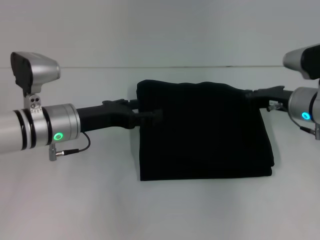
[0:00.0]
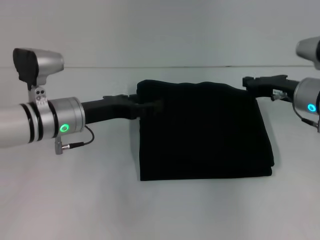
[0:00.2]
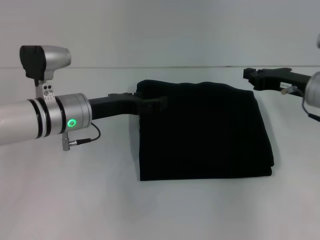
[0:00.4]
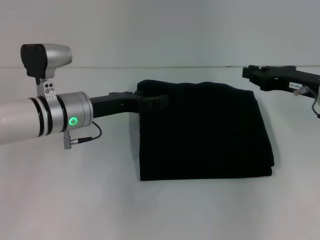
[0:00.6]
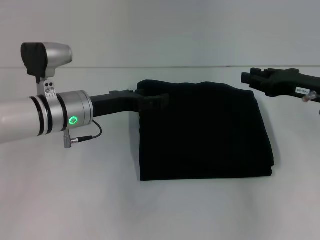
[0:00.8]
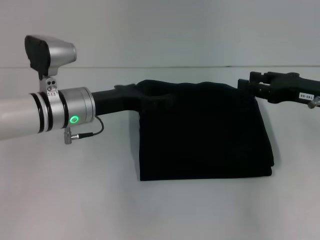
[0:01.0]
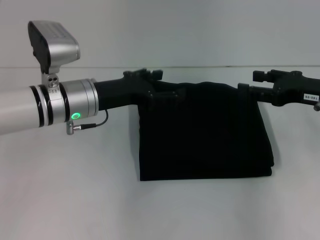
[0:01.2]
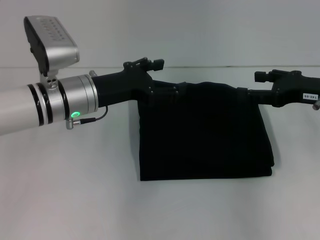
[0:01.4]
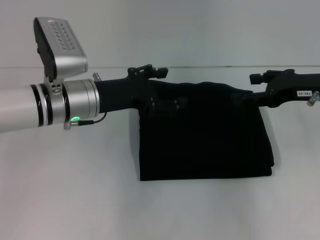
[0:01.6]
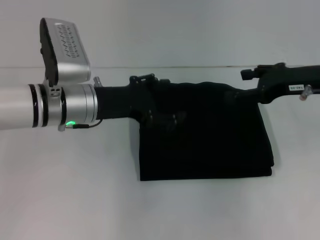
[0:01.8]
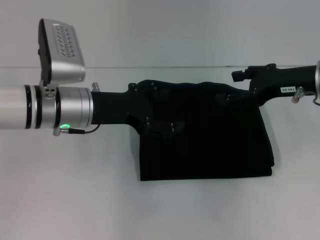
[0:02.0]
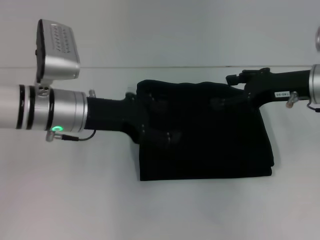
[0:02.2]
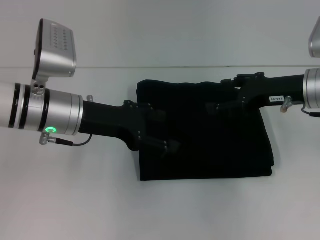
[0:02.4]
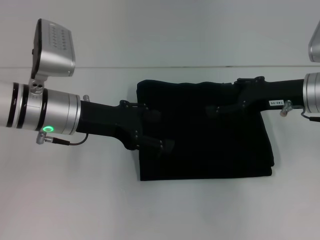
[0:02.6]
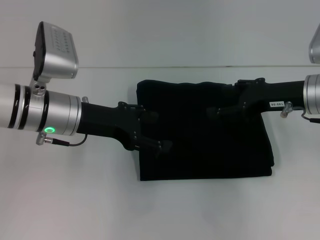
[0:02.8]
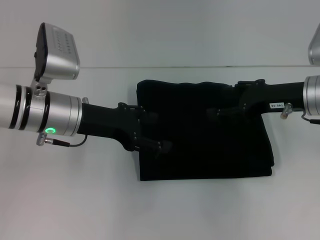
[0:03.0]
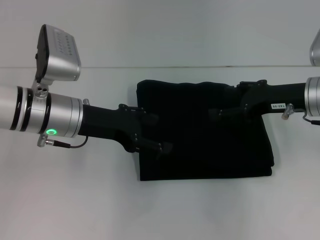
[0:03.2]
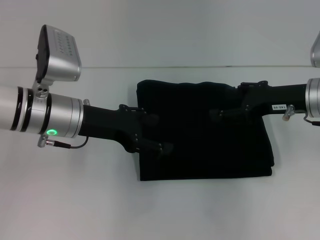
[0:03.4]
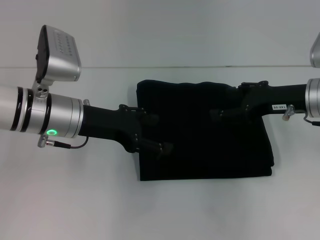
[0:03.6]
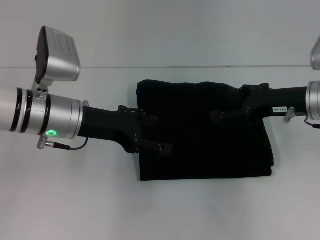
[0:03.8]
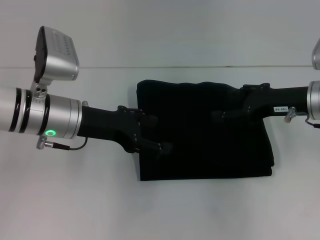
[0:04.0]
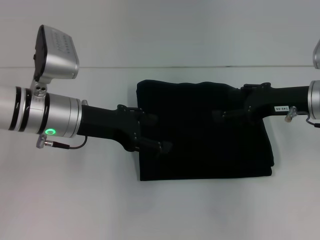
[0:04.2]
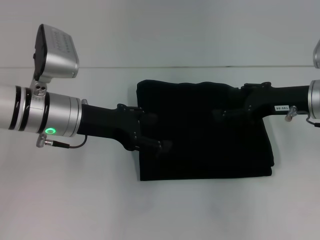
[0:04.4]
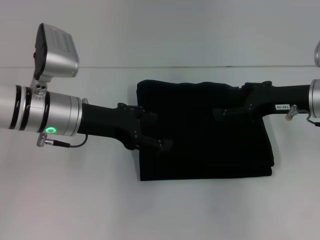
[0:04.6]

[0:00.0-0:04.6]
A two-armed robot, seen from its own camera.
0:00.0 to 0:01.6: The left gripper changes place by about 5 cm, while the right gripper moves upward, roughly 5 cm, and opens.
0:03.0 to 0:04.6: Neither gripper changes place.

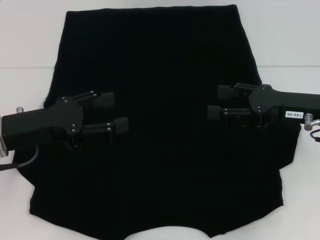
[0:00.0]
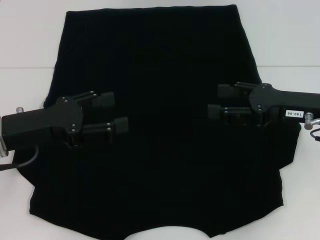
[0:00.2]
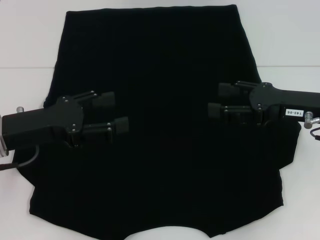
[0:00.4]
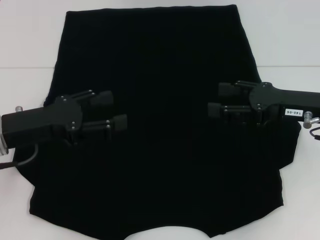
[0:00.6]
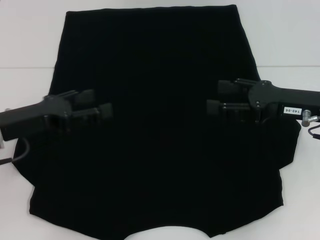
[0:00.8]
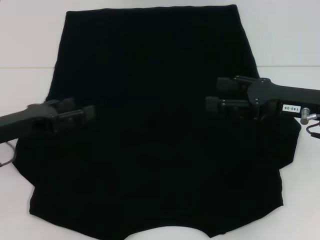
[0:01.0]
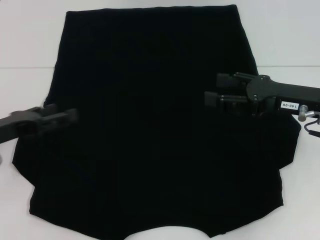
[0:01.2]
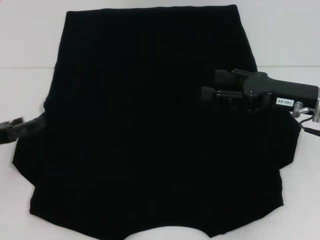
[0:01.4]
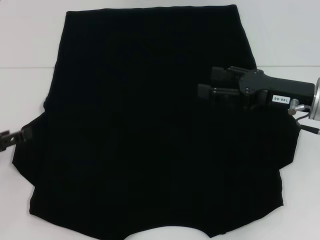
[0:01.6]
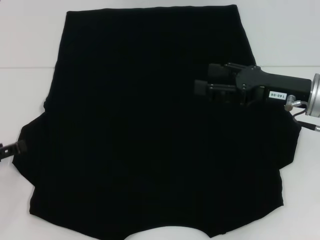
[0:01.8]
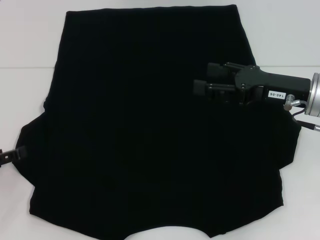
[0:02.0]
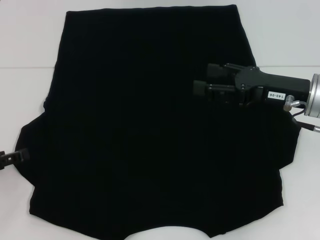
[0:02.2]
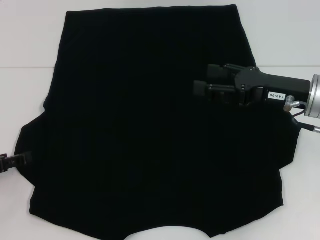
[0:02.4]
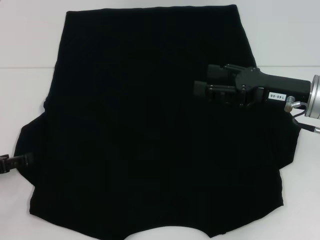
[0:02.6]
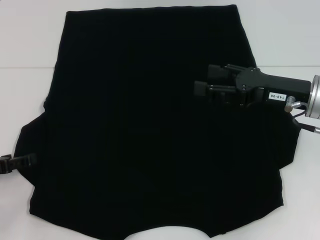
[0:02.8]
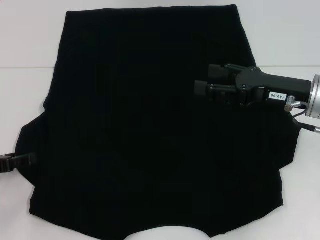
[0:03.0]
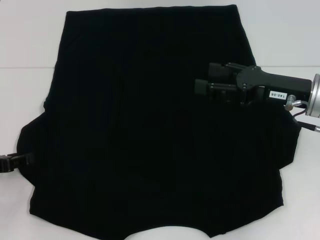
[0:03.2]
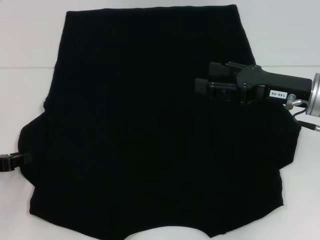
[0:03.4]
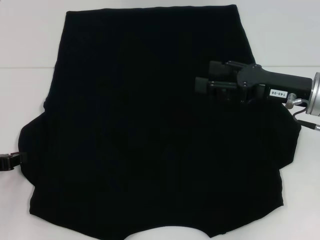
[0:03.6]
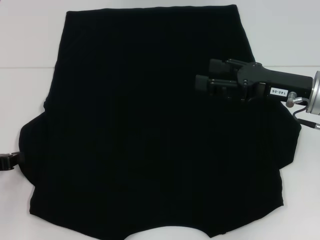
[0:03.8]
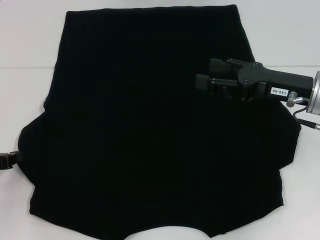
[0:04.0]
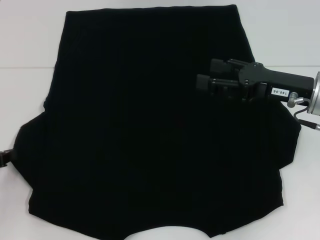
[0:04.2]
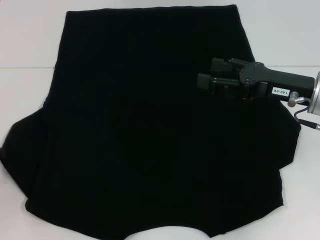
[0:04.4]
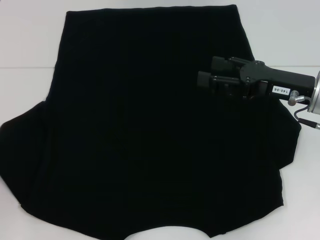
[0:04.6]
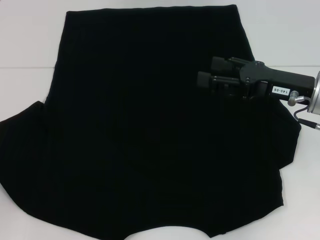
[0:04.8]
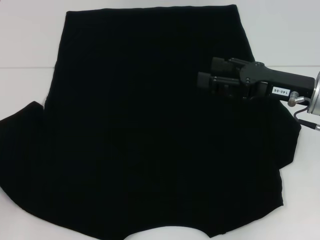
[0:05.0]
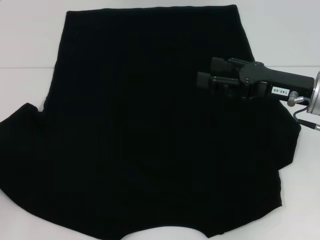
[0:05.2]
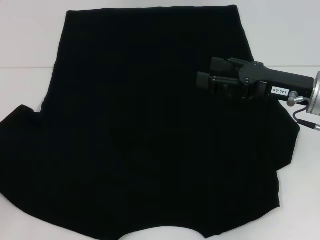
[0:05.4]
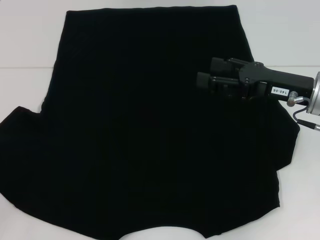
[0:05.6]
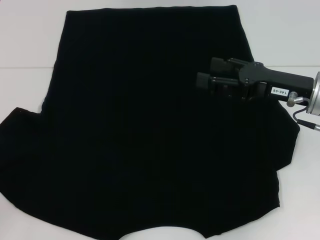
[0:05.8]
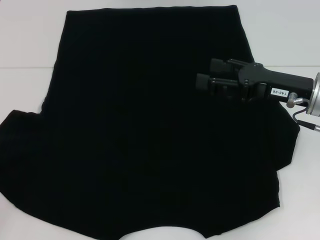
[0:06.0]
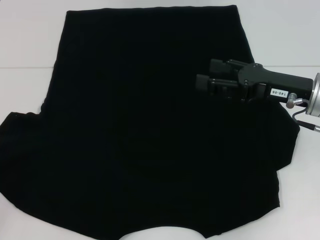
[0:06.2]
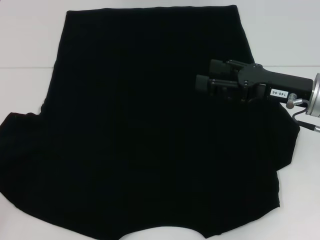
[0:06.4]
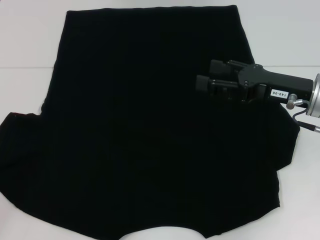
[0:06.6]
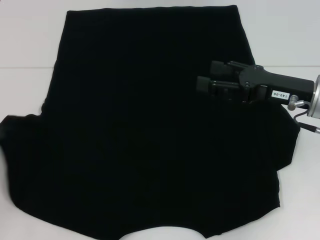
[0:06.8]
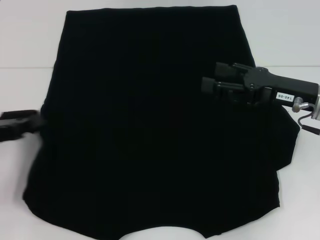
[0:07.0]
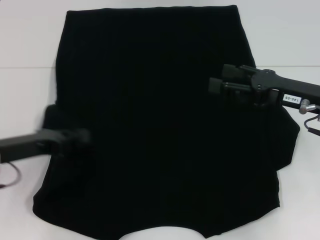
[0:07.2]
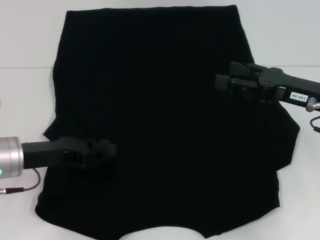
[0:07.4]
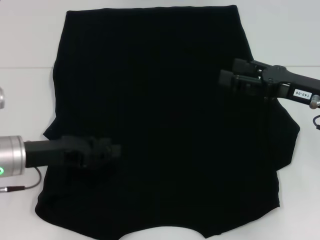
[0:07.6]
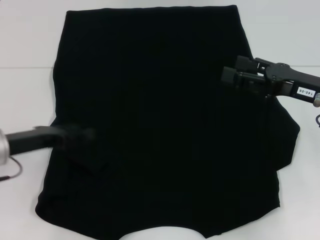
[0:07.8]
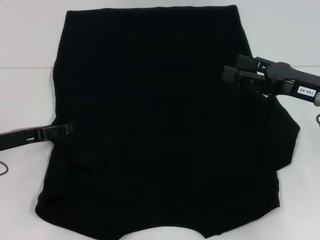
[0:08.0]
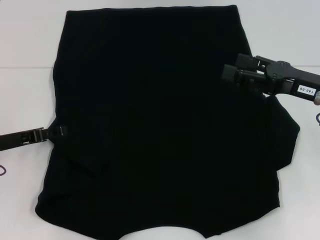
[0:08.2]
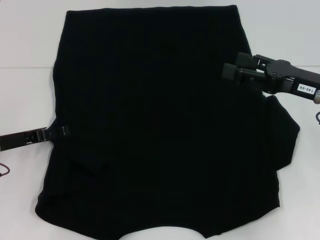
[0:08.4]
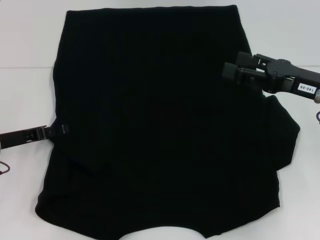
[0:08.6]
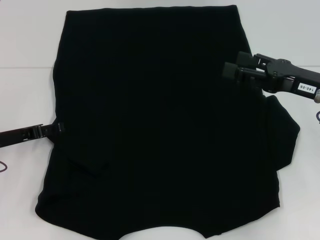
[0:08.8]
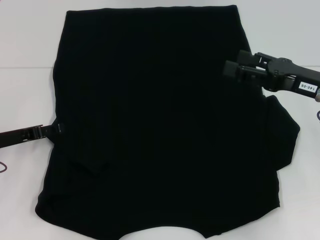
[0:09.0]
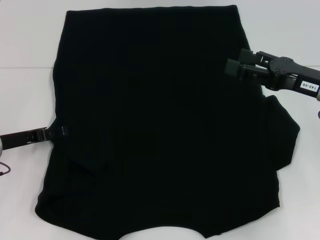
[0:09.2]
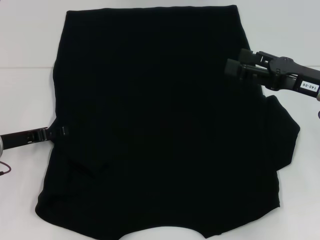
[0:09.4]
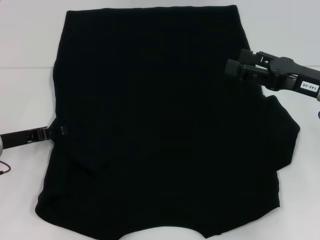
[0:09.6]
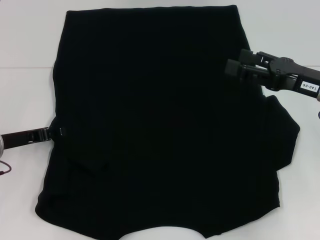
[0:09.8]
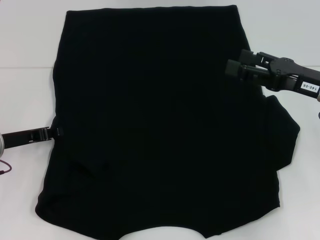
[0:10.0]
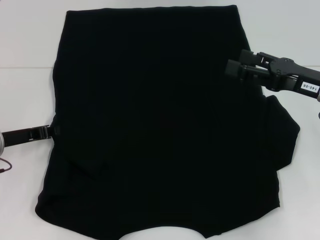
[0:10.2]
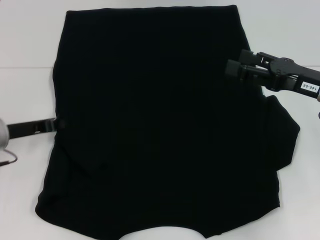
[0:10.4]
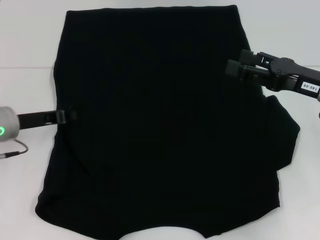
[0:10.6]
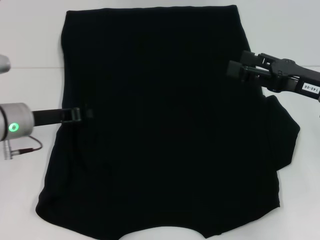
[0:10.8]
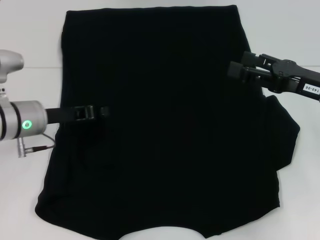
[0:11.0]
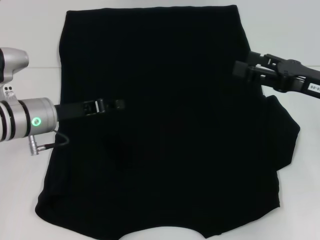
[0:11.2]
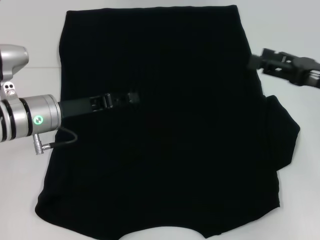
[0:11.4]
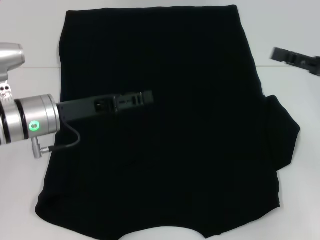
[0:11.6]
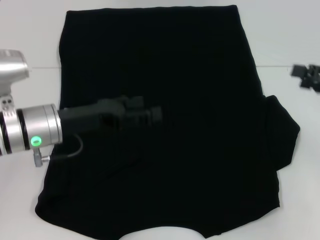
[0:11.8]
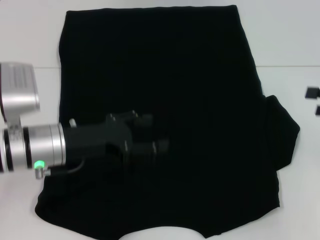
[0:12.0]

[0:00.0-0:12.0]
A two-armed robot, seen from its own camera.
Step, 0:00.0 to 0:11.2: Fold the bottom left sleeve with your left hand.
0:00.0 to 0:01.6: The left gripper moves to the left and downward, roughly 10 cm.
0:01.6 to 0:03.0: The grippers move only a little.
0:03.0 to 0:04.4: The left gripper closes up.
0:04.4 to 0:06.0: The grippers move only a little.
0:06.0 to 0:07.6: The left gripper travels to the right and forward by some 15 cm.
0:07.6 to 0:09.0: The left gripper is displaced to the left by roughly 5 cm, and opens up.
0:09.0 to 0:10.4: The left gripper closes up.
0:10.4 to 0:12.0: Both grippers travel together to the right, roughly 10 cm. The left gripper opens its fingers.

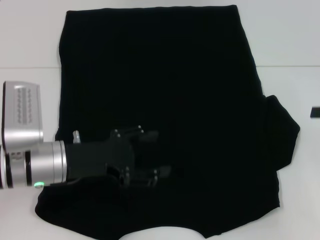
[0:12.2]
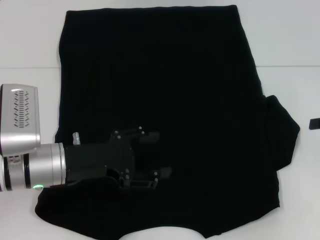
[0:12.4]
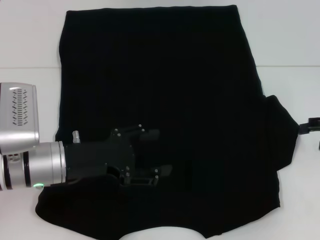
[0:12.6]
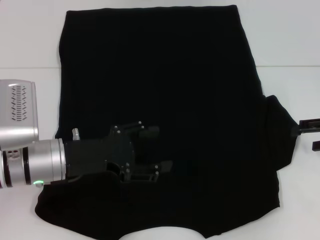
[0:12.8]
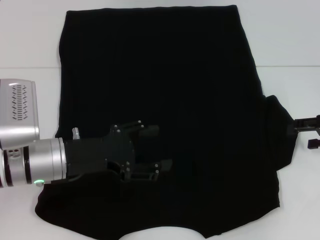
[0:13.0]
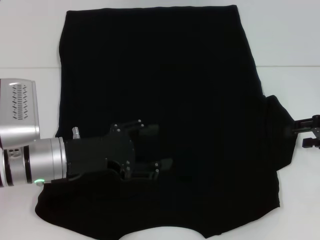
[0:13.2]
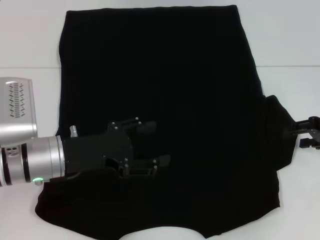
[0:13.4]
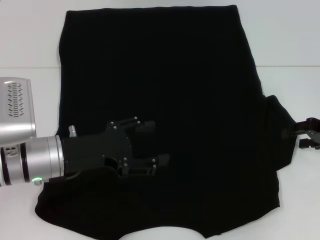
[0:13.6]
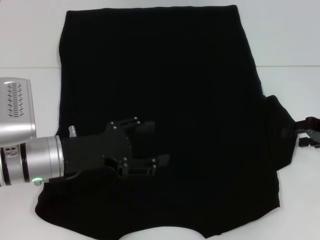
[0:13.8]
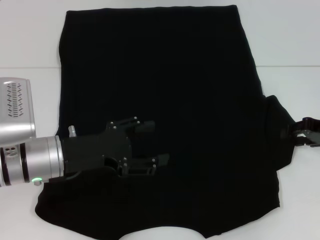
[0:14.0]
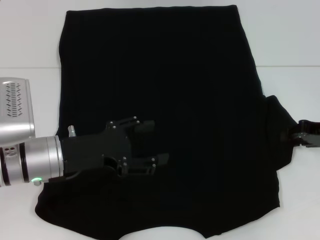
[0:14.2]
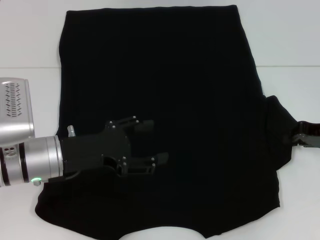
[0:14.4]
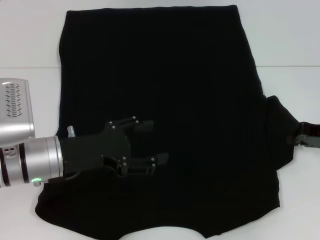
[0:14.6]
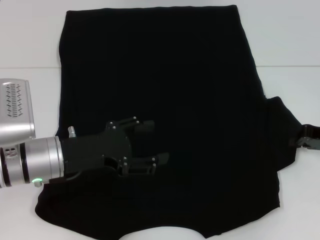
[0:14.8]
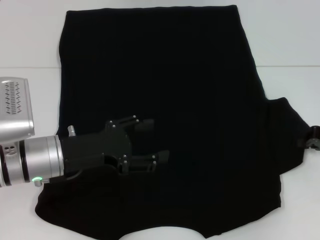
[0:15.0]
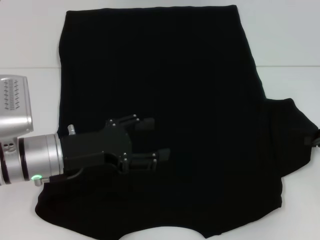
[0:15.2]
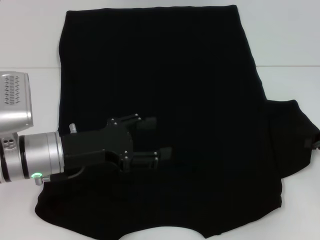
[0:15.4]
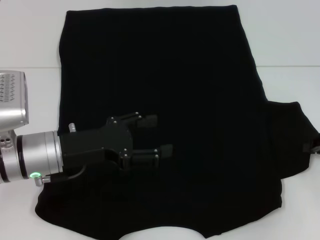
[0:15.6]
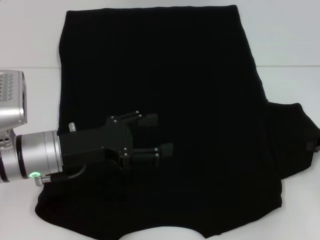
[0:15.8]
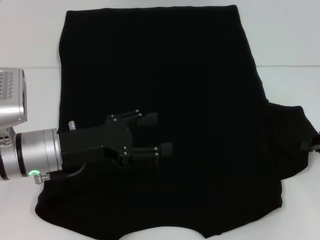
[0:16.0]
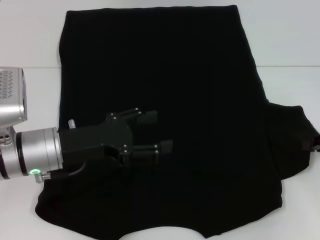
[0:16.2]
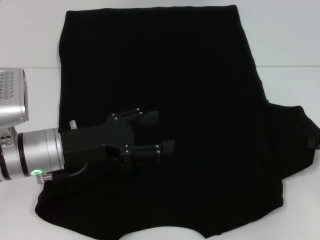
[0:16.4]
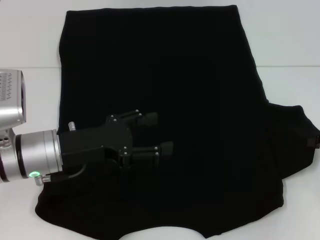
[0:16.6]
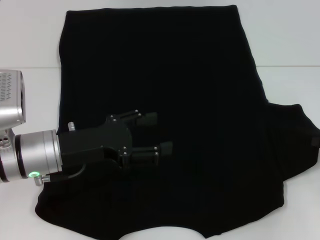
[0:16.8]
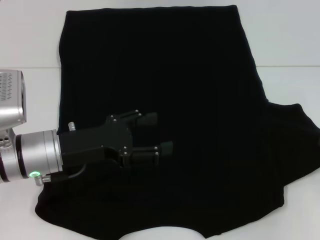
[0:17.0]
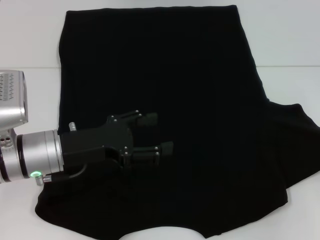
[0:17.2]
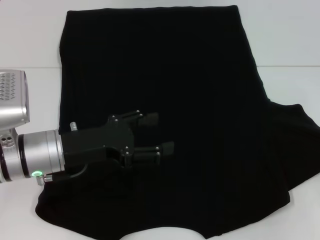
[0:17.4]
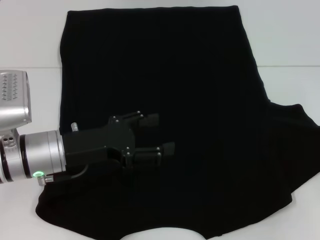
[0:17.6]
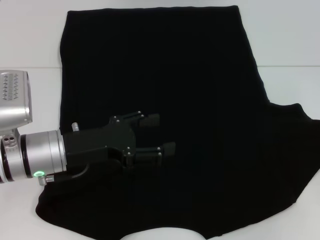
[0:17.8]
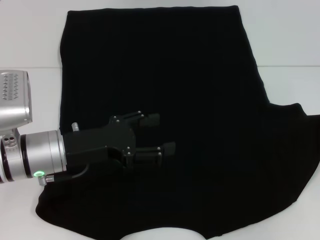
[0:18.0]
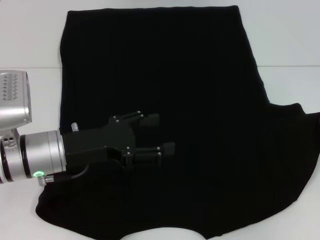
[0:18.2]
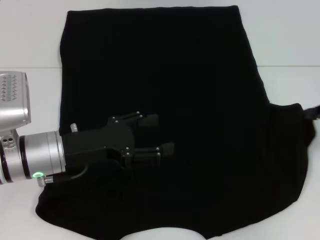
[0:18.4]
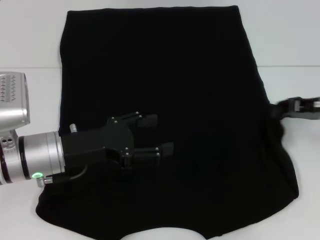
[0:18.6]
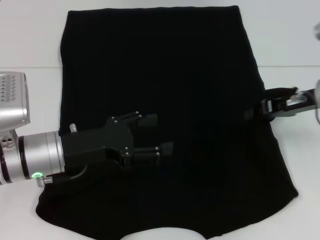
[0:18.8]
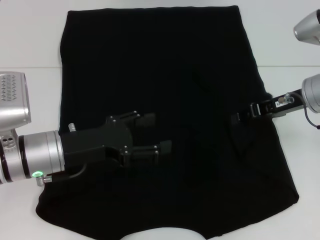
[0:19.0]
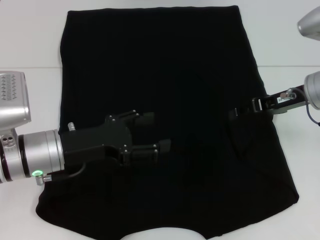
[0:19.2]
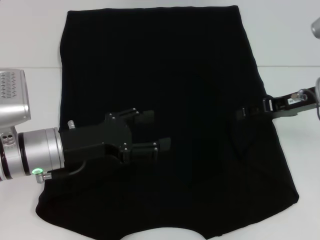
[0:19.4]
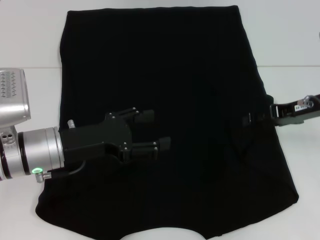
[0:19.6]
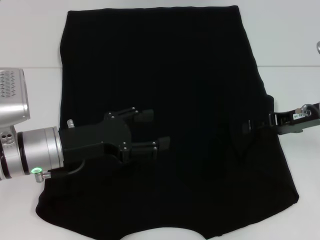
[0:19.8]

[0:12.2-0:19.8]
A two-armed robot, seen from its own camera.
0:12.2 to 0:13.8: The right gripper goes approximately 5 cm to the left.
0:13.8 to 0:15.2: The right gripper closes up.
0:15.2 to 0:18.2: There are only small adjustments of the grippers.
0:18.2 to 0:19.8: The right gripper shifts about 10 cm to the left, and opens up.
